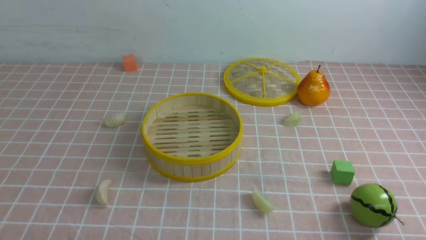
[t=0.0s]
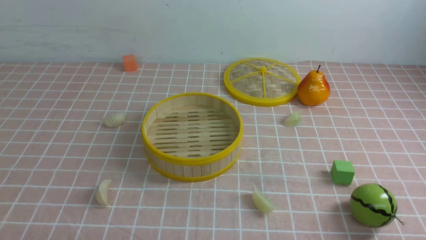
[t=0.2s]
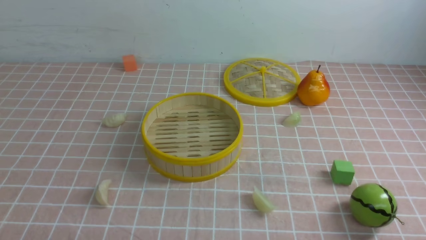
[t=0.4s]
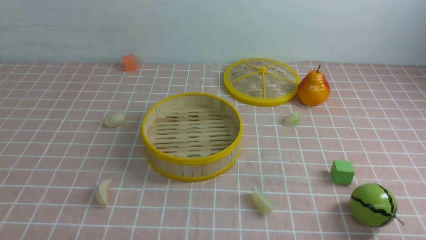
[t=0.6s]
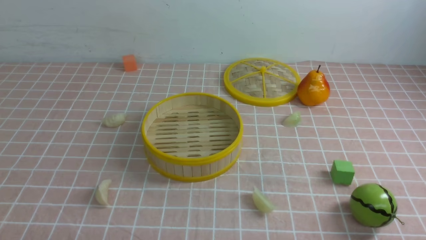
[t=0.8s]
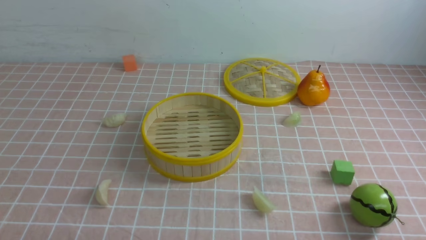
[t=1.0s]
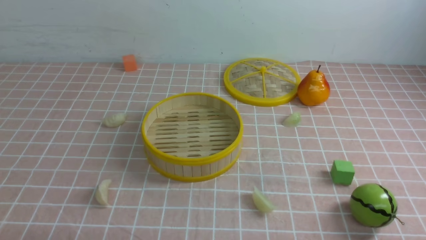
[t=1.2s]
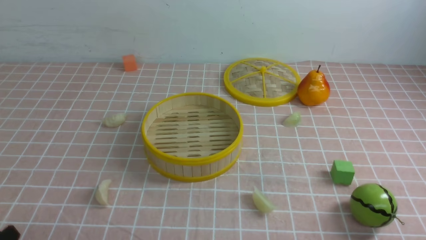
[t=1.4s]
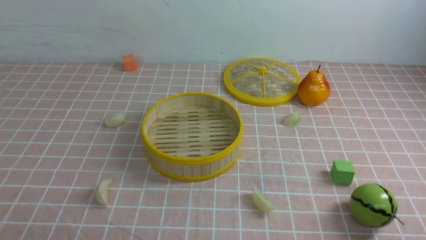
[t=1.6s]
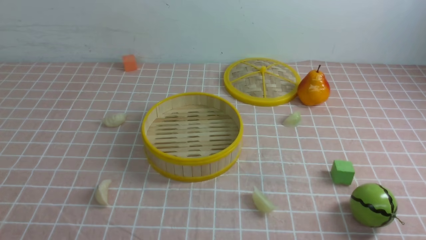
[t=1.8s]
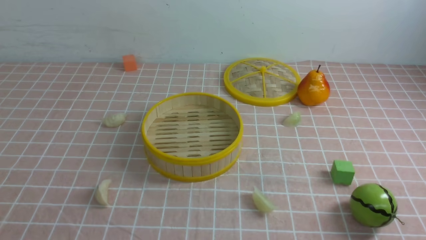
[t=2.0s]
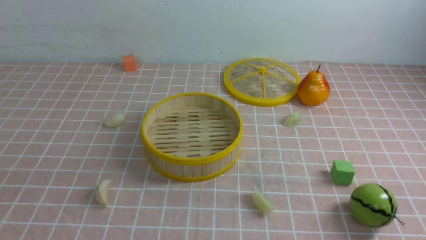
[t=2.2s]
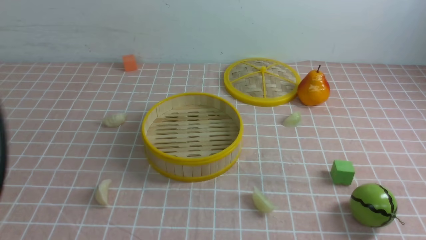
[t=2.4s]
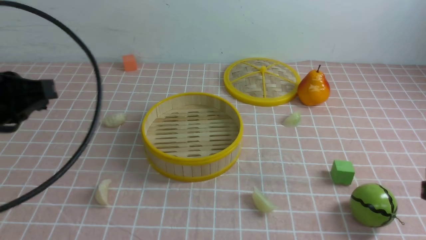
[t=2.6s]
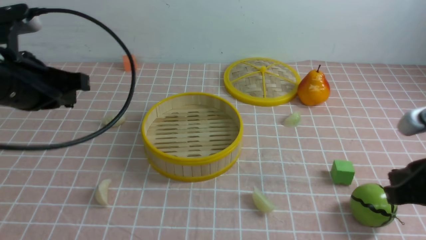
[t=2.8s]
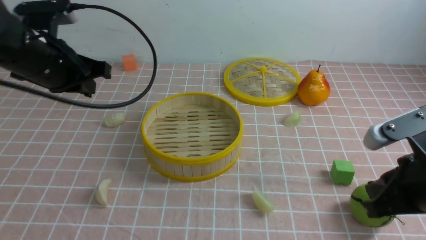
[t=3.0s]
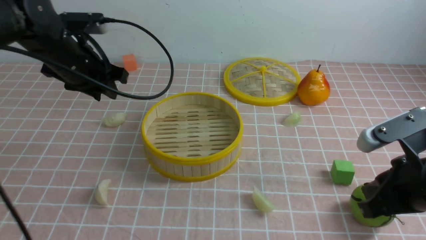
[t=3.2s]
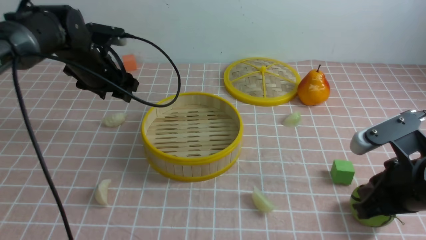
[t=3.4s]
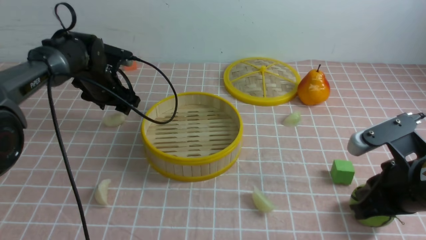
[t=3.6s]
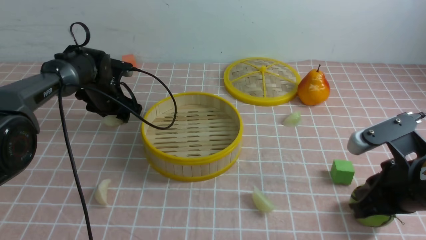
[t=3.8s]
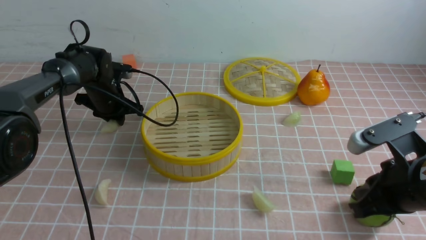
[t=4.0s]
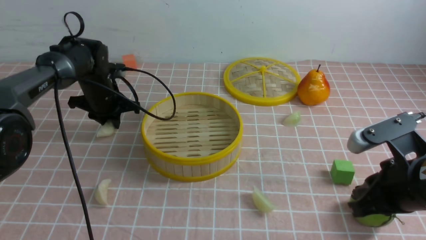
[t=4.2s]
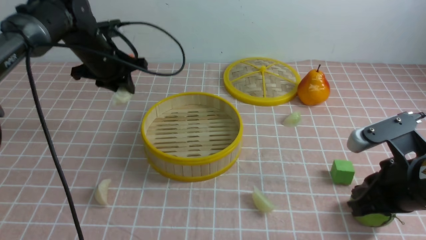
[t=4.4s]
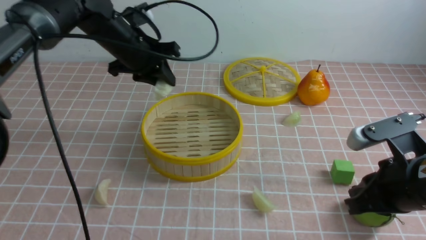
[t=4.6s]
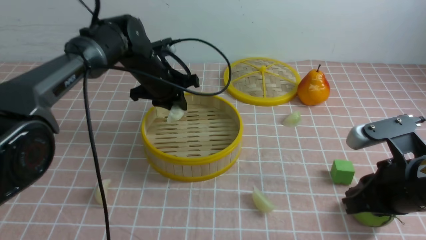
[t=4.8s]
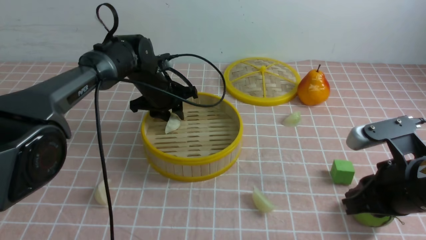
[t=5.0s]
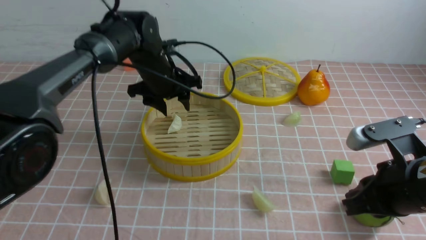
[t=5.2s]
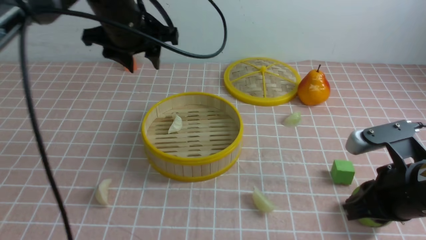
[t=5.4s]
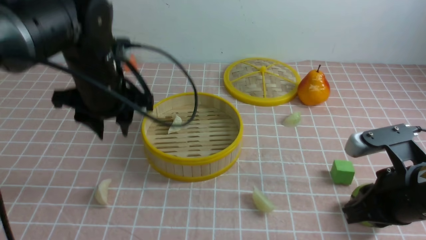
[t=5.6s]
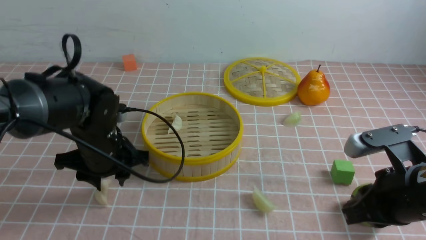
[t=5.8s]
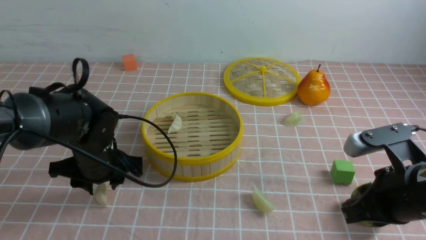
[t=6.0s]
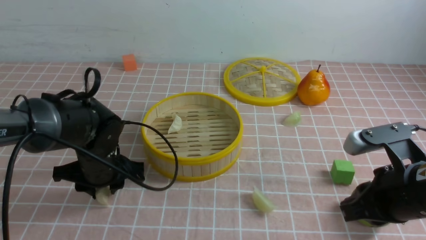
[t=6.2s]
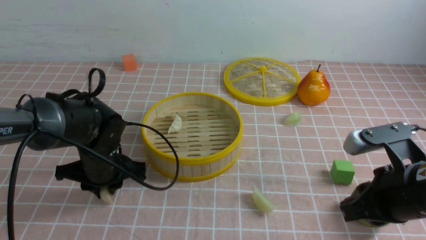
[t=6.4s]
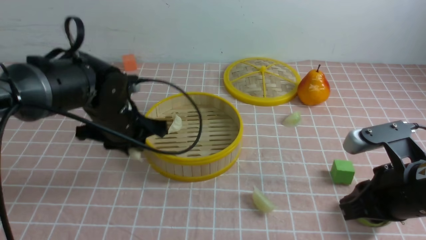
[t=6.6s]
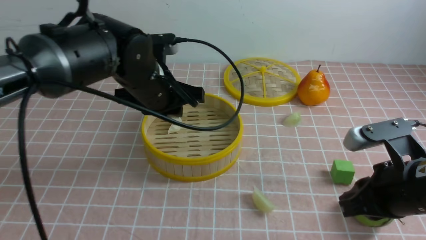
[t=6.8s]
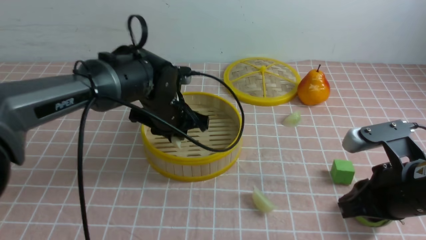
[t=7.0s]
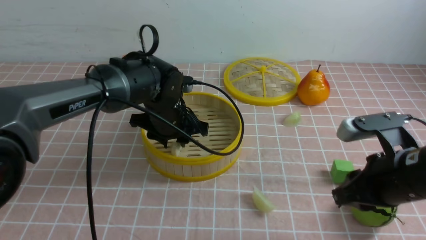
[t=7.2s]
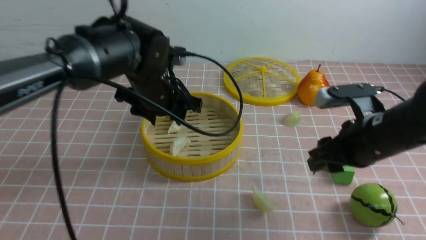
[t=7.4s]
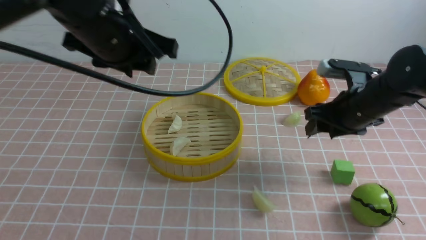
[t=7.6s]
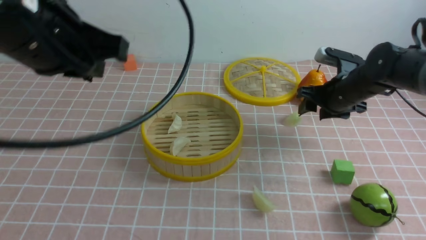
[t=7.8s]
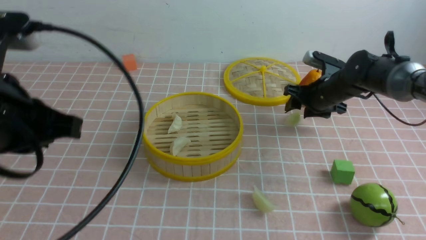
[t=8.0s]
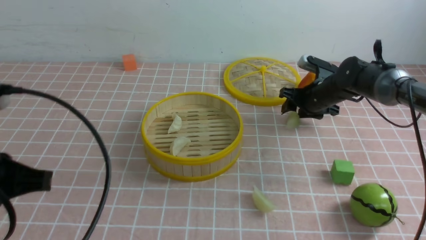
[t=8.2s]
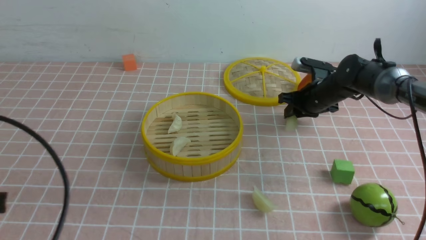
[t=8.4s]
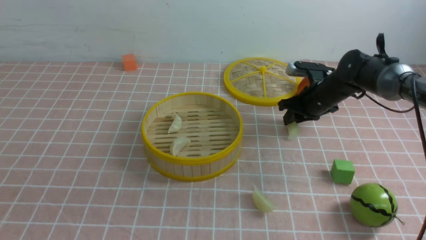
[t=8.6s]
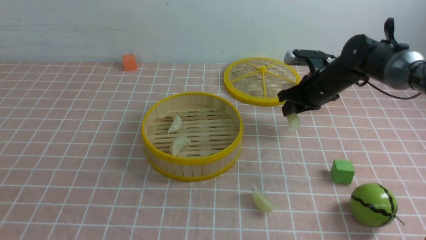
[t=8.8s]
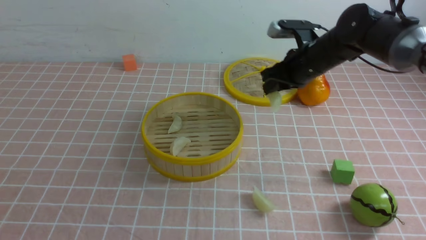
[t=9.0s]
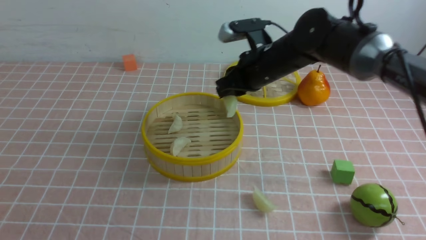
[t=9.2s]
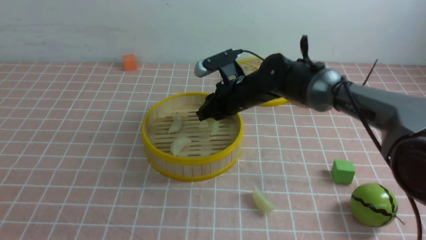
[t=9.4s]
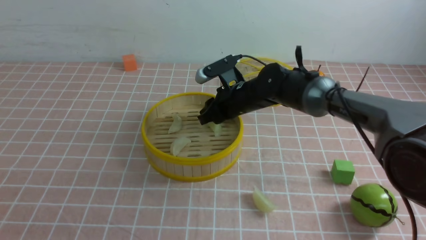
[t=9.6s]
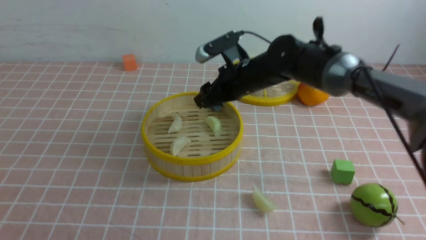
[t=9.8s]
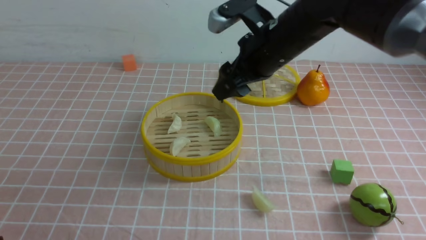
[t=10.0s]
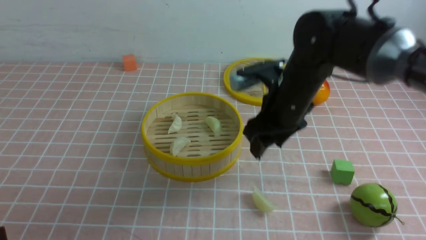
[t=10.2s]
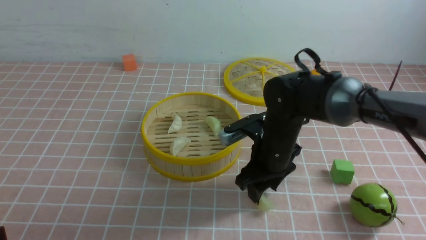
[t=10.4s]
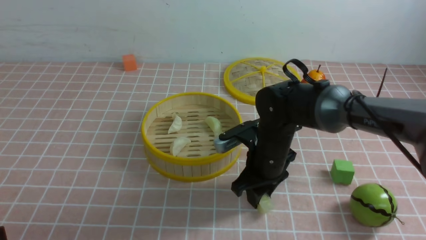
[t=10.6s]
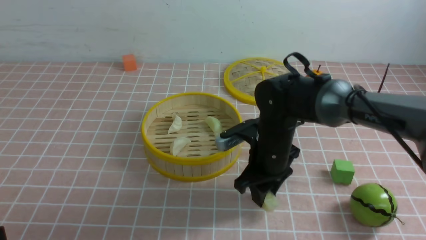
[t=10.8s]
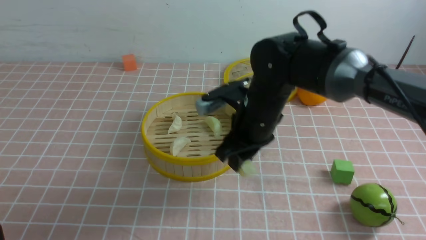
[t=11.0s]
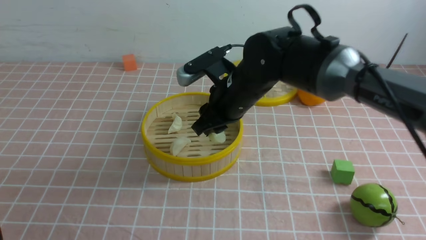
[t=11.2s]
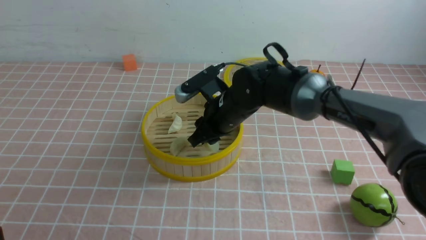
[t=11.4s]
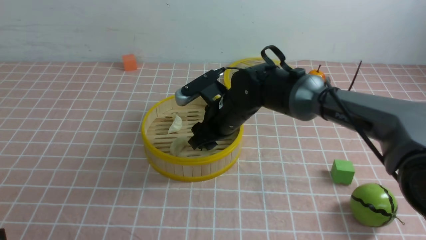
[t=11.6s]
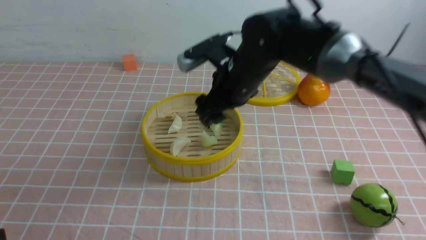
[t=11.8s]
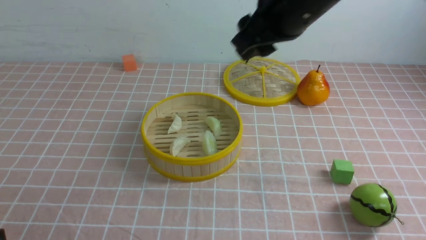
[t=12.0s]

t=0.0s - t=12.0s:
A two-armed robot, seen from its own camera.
Task of the whole recording: put the dumplings into the steamer on the table with the pink tablecloth.
Step, t=0.0s - t=4.2s: use the left arm to grab a dumpling.
Step, t=4.4s - t=5.2s: use the left arm to put the dumpling into the steamer.
Step, t=5.4s - t=6.4s: use the left arm to grab a dumpling.
Step, t=6.6s - t=7.4s: use the left arm to put the dumpling into the steamer.
Step, t=7.6s - t=8.8s: use the right arm to grab a dumpling.
Step, t=9.0s - t=9.8s: use the right arm to put the dumpling into the steamer.
Step, t=10.0s - t=10.8s: use the right arm to grab a dumpling.
Step, t=11.0s - t=11.8s: use the right arm to put the dumpling into the steamer.
t=1.6s - t=3.0s: The right gripper goes roughly 15 cm forward and upward, and closes its fingers; the left gripper heads forward, covering about 30 cm.
t=3.0s - t=4.4s: The left gripper travels forward and downward by roughly 15 cm, and opens, then closes again.
t=4.4s - t=6.0s: The left gripper is displaced backward and downward by approximately 15 cm, and opens.
t=6.0s - t=7.6s: The right gripper heads forward, covering about 20 cm, and opens, while the left gripper goes some 20 cm upward.
t=7.6s - t=9.0s: The left gripper travels backward and to the left by approximately 30 cm, and closes its fingers. The right gripper travels forward and to the left by roughly 10 cm, and closes up.
t=9.0s - t=10.4s: The right gripper shifts some 15 cm backward, downward and to the left, and opens its fingers; the left gripper shifts some 5 cm downward.
t=10.4s - t=12.0s: The right gripper shifts about 20 cm upward.

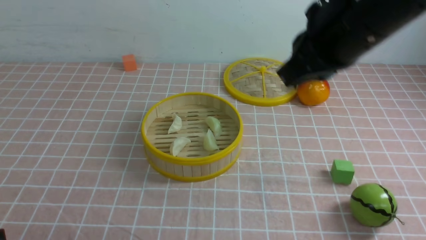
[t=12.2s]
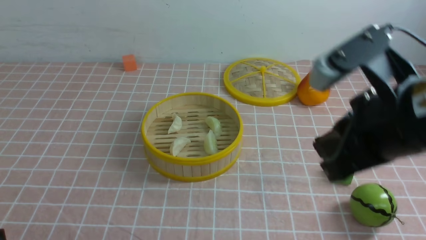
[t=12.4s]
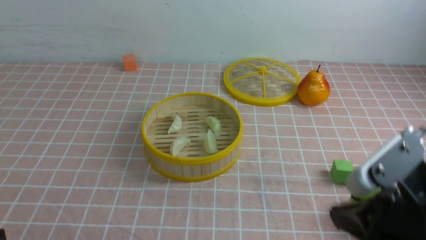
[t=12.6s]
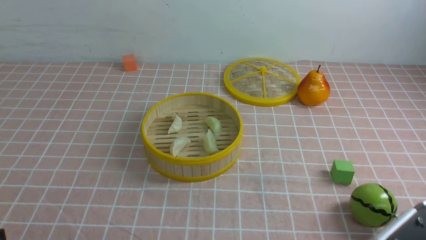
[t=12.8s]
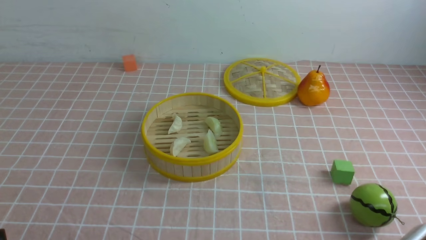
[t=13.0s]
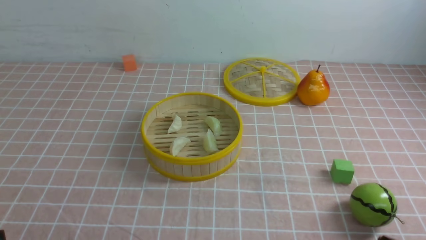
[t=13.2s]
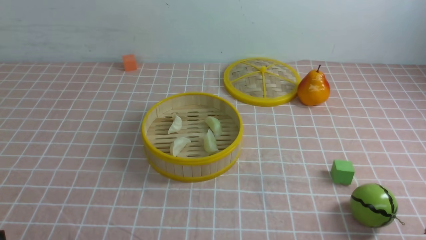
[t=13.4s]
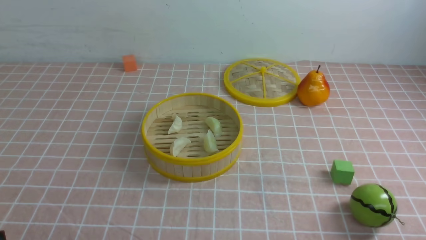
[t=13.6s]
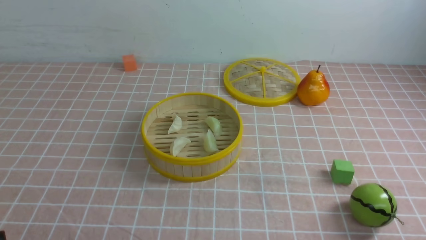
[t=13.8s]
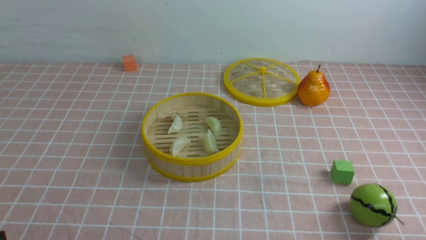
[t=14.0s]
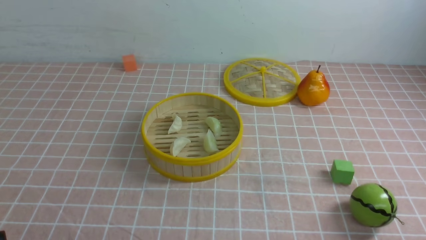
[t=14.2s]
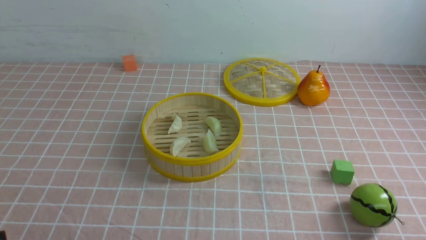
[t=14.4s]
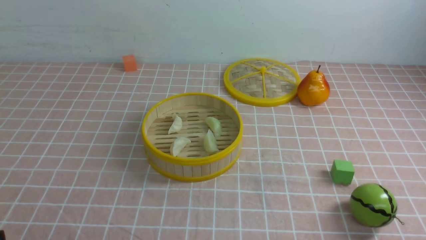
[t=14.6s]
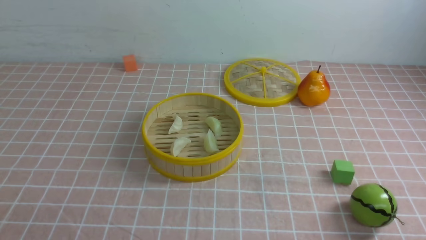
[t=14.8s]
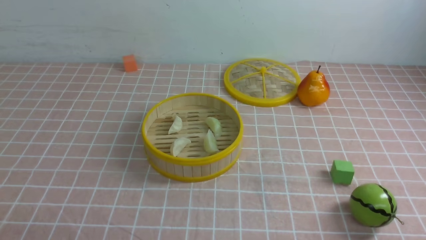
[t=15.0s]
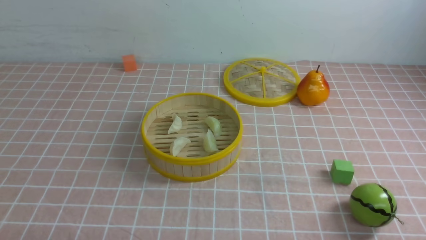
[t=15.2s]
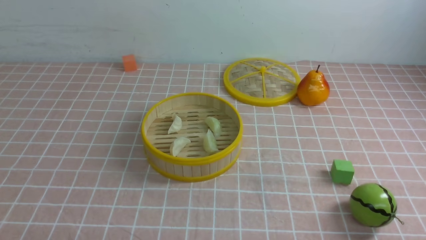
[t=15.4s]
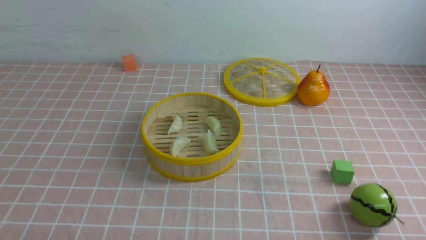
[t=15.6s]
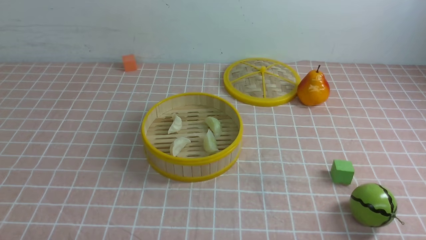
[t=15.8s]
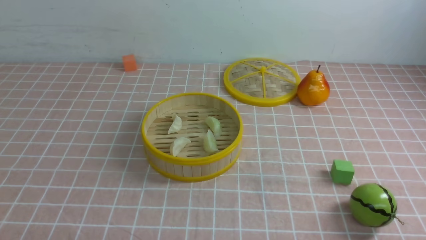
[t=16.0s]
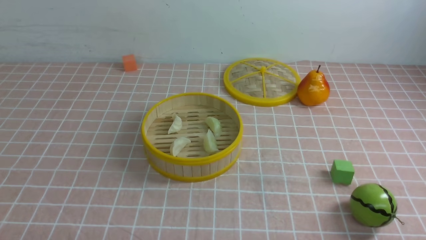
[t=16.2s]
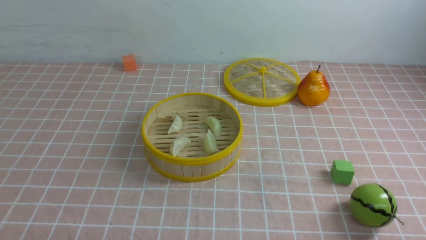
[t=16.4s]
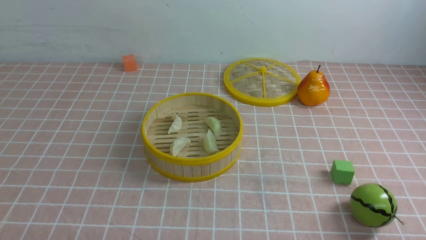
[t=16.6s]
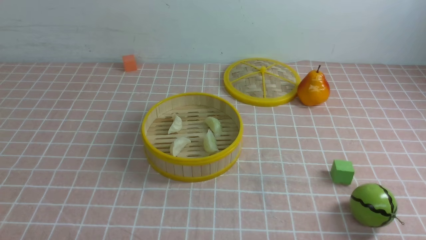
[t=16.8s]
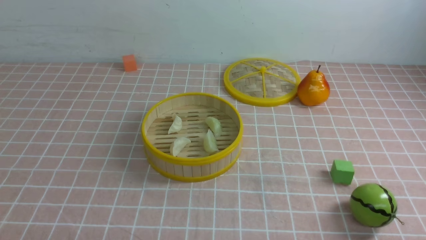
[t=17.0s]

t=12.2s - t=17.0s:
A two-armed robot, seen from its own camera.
Task of the whole recording: put the dumplings into the steamer on the table with the pink tablecloth.
t=12.2s - t=13.8s: The right gripper heads downward, backward and to the right, covering roughly 35 cm.
t=15.4s - t=17.0s: Neither gripper changes place.
